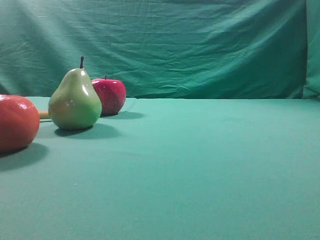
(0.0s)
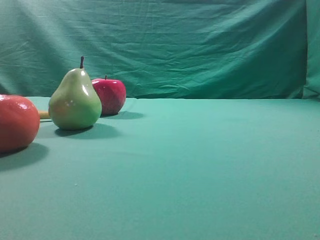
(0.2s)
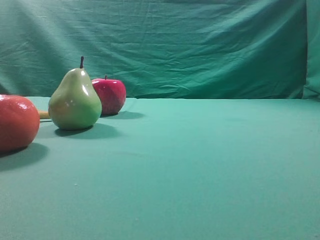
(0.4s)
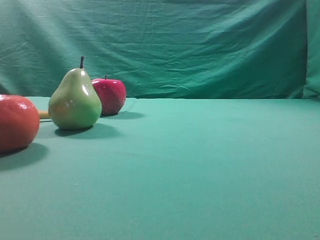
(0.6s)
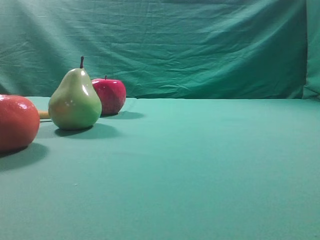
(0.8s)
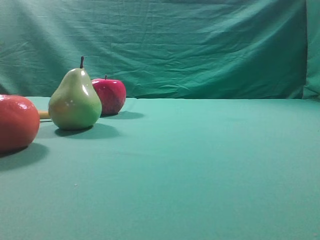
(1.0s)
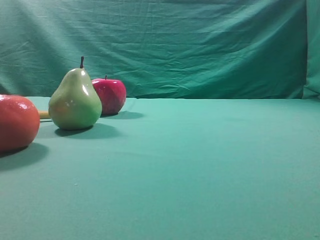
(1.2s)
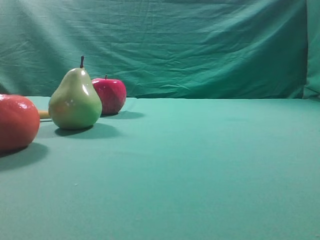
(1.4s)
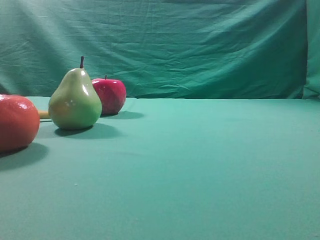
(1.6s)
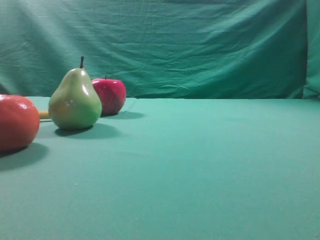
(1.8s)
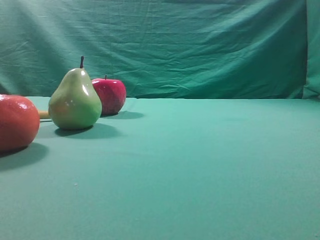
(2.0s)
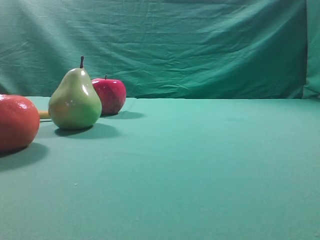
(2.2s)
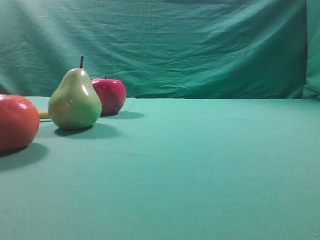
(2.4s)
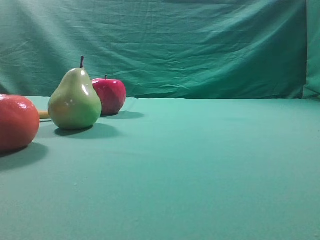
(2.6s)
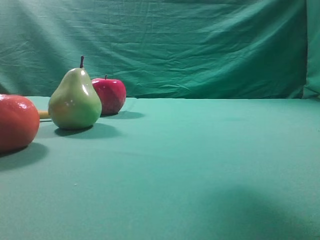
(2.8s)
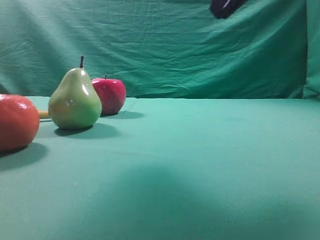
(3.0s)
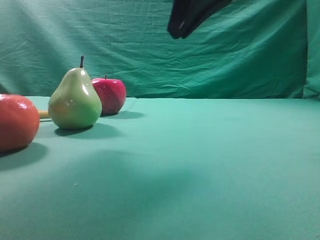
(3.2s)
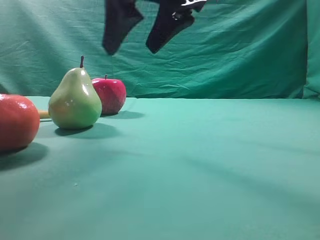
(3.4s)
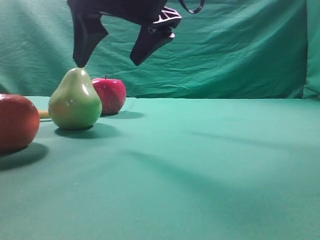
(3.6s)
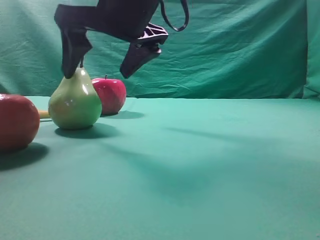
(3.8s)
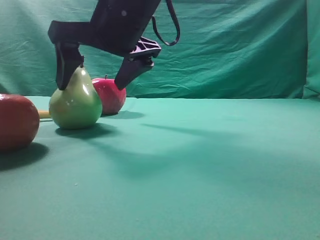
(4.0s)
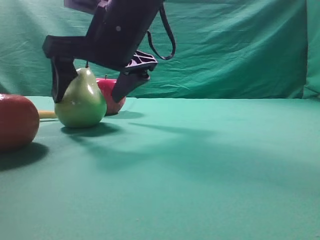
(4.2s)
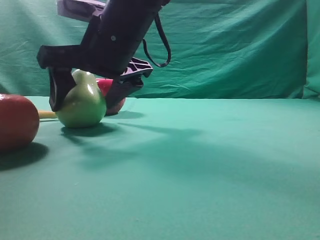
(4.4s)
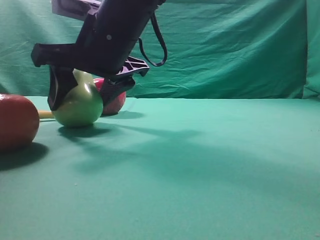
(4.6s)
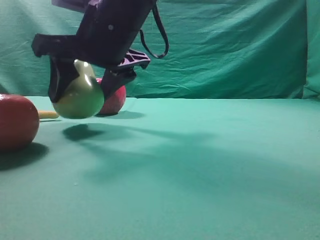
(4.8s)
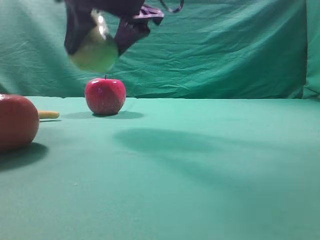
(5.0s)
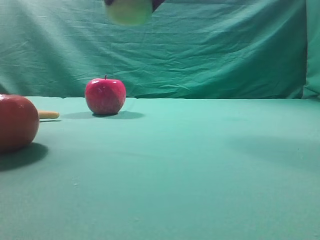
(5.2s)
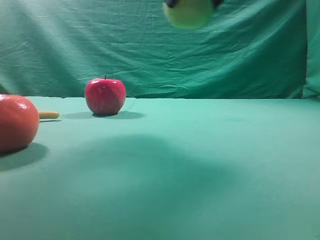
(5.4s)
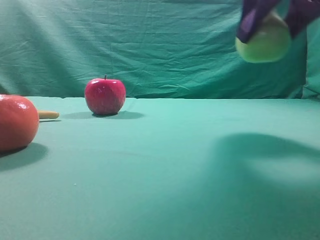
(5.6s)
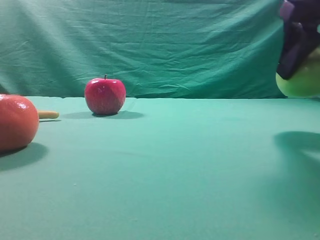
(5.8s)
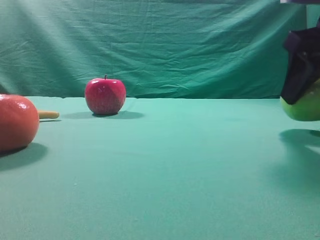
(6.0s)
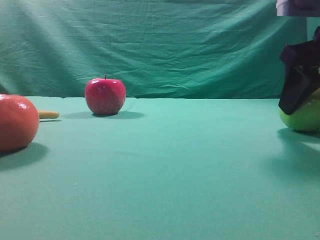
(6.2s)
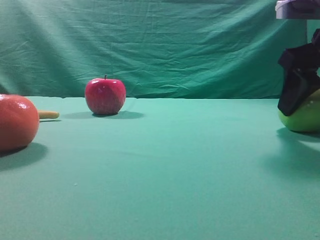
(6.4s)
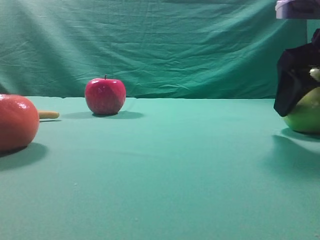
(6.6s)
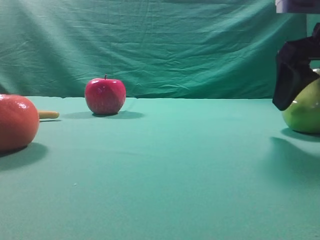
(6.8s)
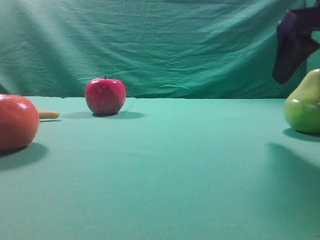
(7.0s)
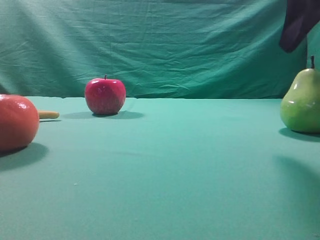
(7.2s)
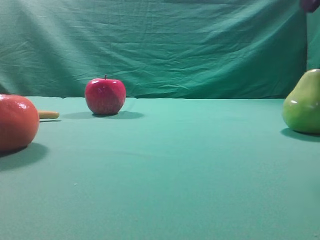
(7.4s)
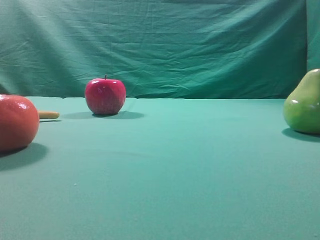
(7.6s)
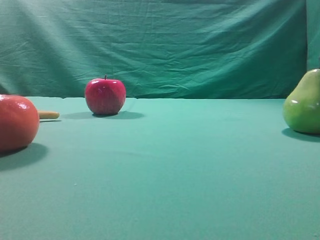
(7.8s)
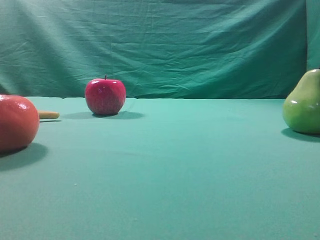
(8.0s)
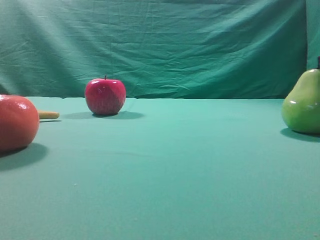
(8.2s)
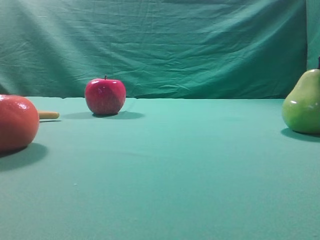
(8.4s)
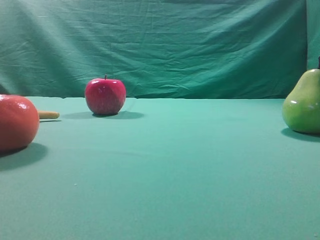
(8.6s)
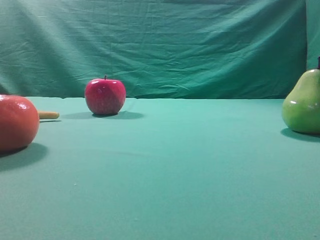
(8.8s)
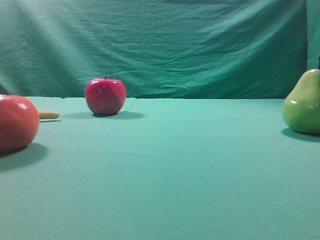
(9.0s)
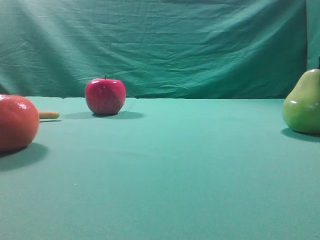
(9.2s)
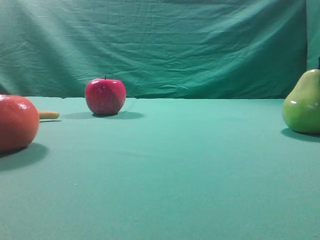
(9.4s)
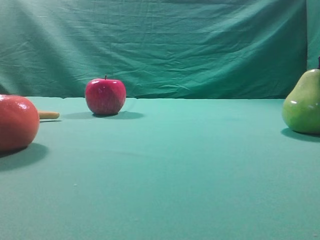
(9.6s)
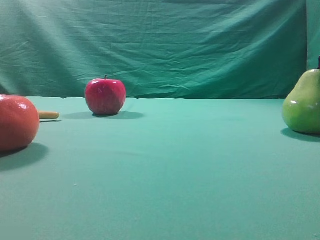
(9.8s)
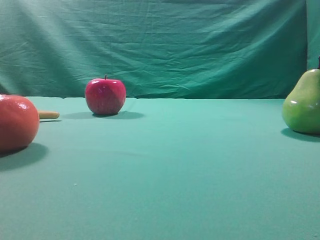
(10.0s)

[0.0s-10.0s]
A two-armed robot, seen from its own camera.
Task of the whole recording: Grasp the pear and place it on one side of the table.
Step, 0.0s to 4.8s: Grasp the high-fiber fruit.
Step, 5.0s to 7.0s: Place it on the right side of the table.
